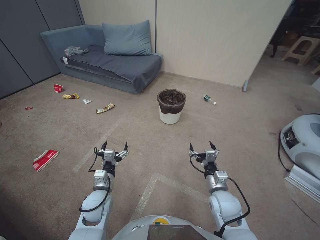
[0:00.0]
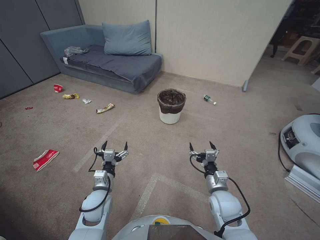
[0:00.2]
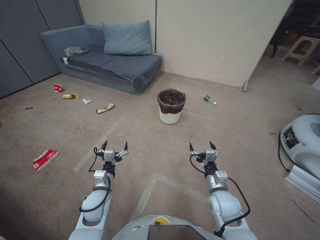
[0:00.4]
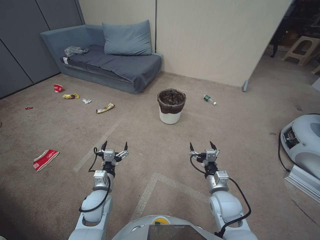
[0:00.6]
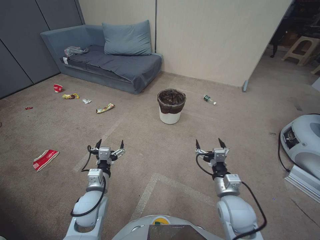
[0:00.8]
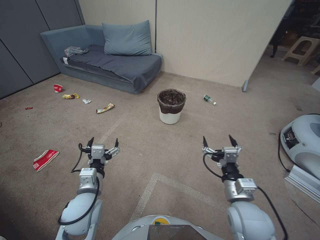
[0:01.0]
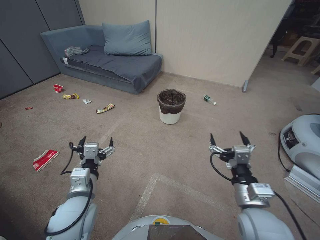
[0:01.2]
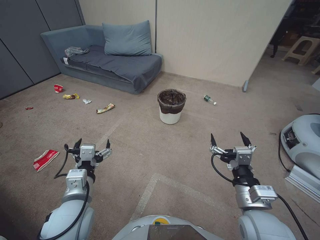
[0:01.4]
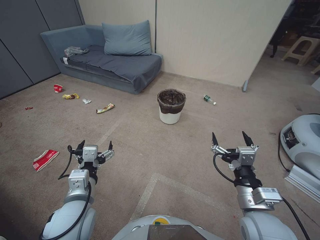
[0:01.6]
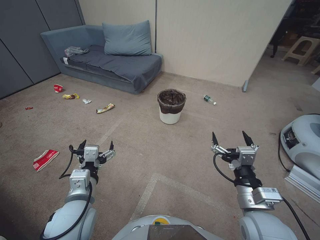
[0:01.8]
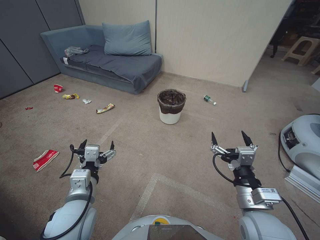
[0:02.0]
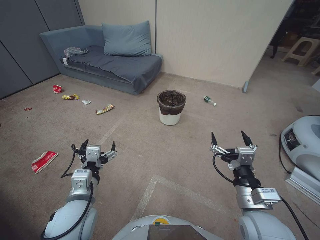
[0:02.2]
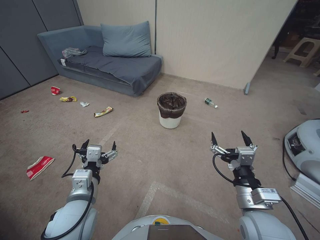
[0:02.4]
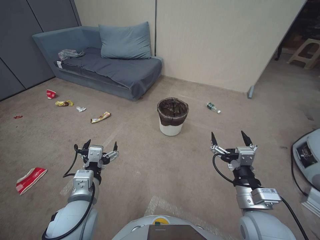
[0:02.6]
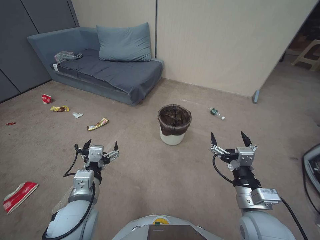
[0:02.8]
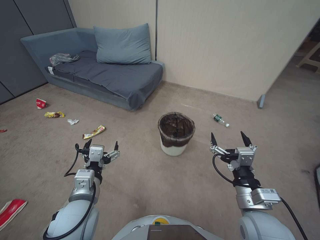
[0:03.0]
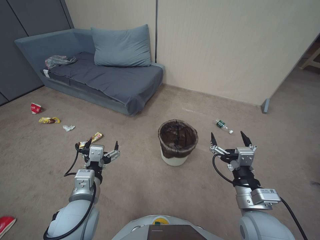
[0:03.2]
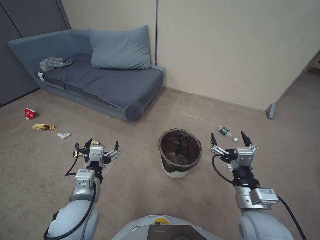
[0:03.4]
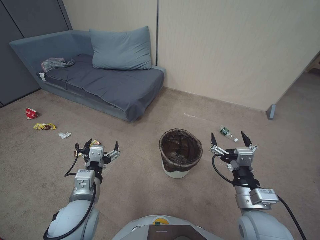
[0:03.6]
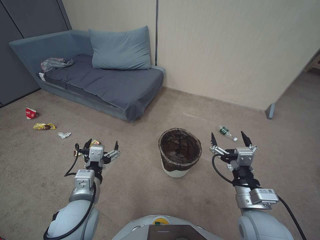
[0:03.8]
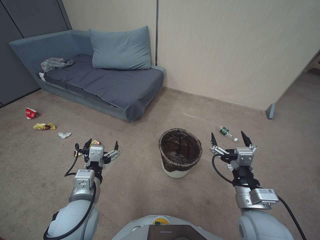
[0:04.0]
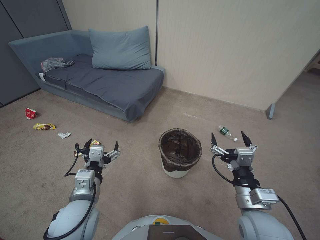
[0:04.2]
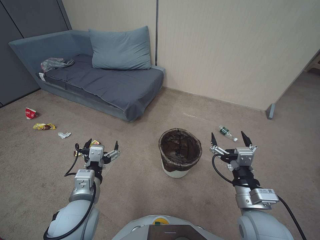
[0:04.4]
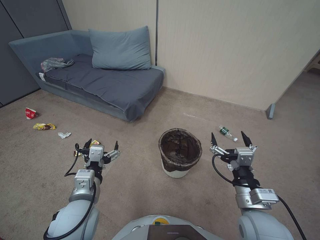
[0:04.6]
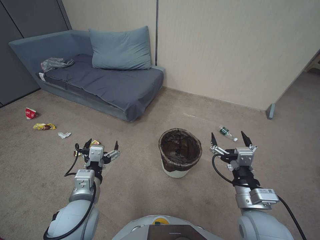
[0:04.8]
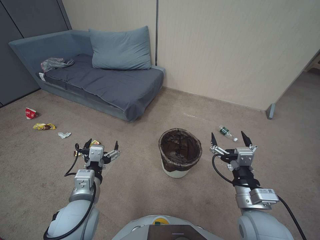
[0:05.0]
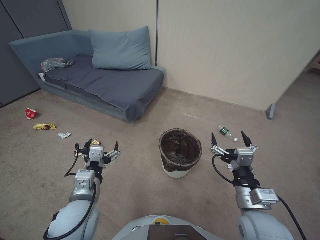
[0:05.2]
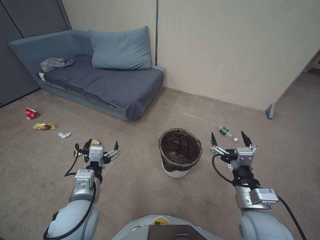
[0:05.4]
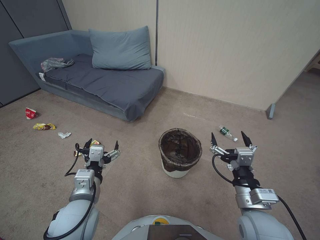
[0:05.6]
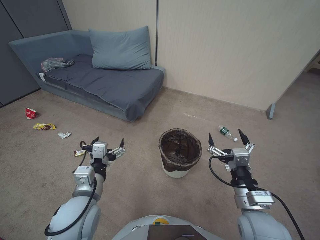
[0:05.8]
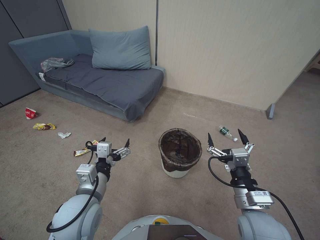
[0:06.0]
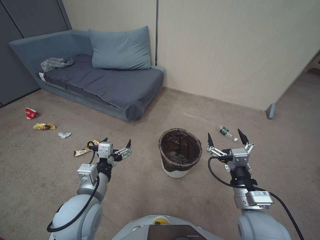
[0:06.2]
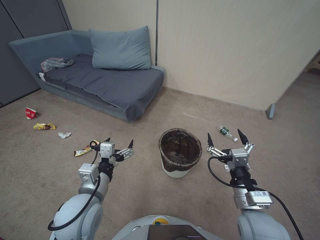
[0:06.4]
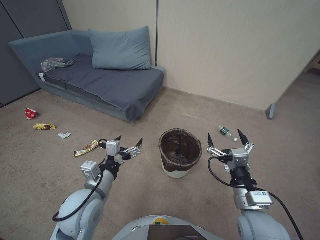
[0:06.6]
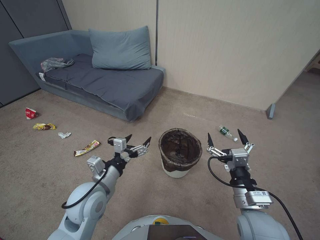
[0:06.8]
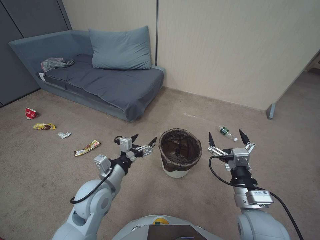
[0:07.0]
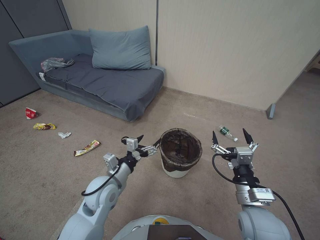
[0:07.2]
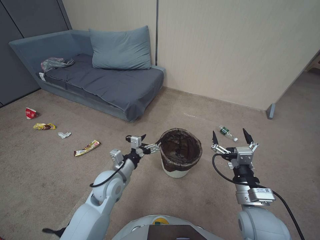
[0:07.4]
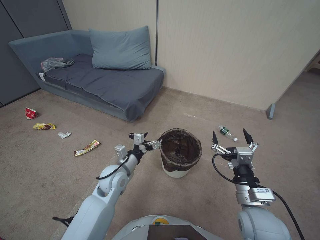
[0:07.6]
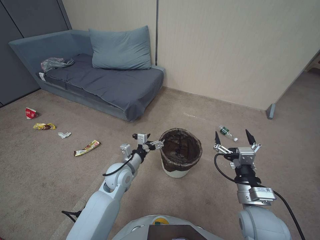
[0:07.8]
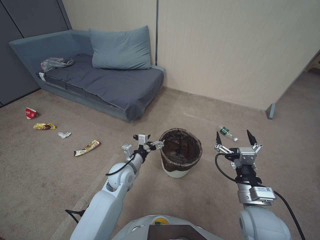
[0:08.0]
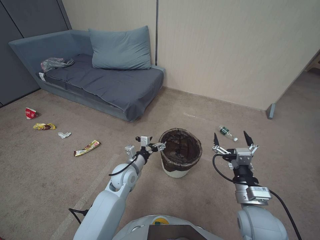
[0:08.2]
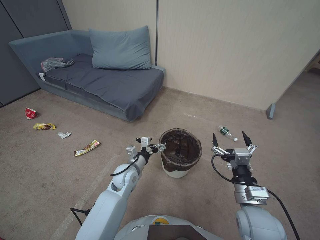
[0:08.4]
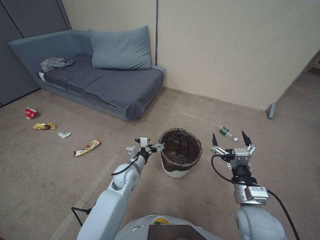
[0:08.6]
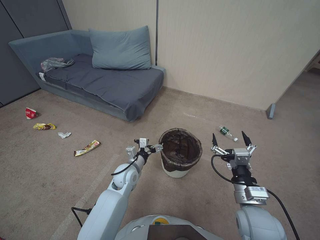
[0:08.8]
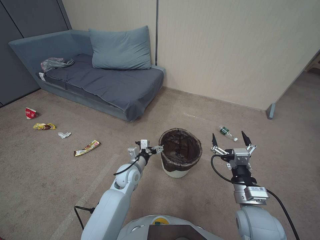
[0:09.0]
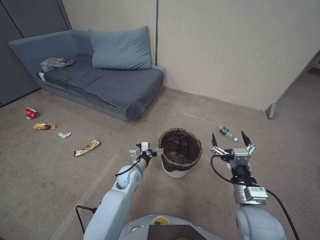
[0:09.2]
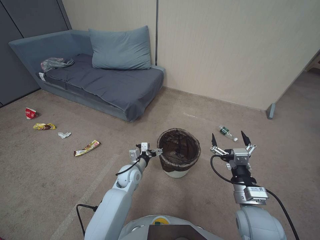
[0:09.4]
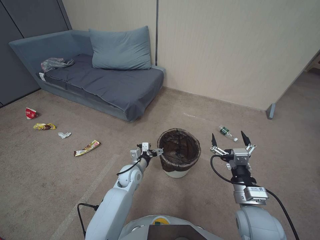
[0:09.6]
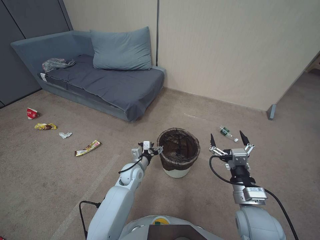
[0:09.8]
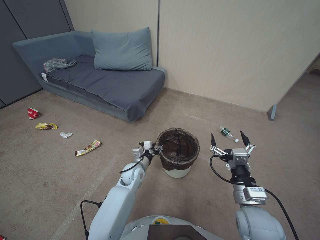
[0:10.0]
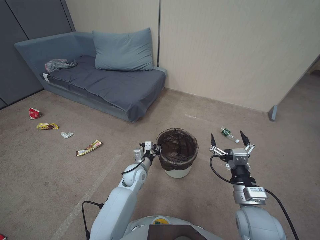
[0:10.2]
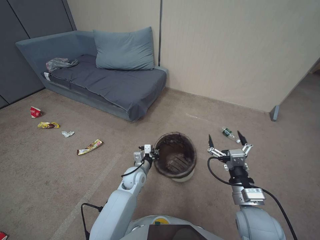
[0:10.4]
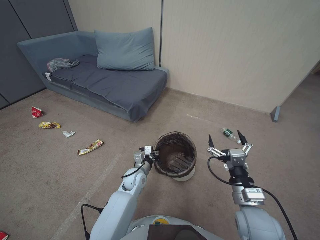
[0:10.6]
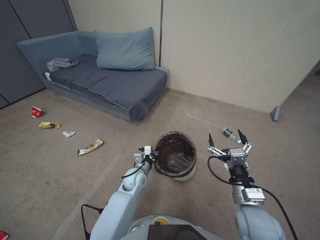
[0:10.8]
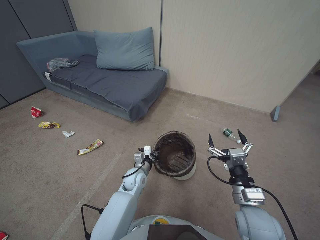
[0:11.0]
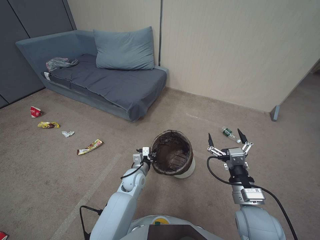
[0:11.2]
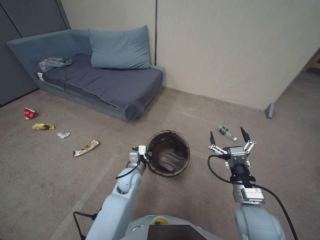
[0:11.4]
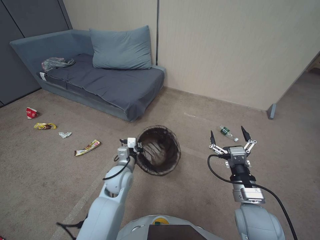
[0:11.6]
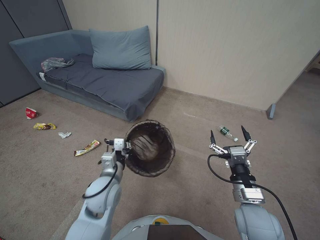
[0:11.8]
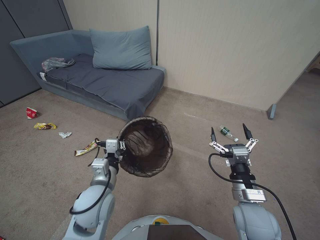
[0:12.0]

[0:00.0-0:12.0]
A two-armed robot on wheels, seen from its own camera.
Task of the whole recording: Pick up the trash bin, then pick up the garbage from the floor and place it into the trash bin.
0:03.0 to 0:04.4: Neither gripper changes place.
0:04.4 to 0:06.0: The grippers stay close to where they were, moving slightly.
0:06.0 to 0:07.6: The left gripper moves forward and downward, some 10 cm.
0:07.6 to 0:09.0: The left gripper shifts approximately 10 cm downward and forward.
0:09.0 to 0:10.4: The left gripper changes place by approximately 5 cm, and closes.
0:10.4 to 0:12.0: The left gripper travels upward and backward by about 20 cm.

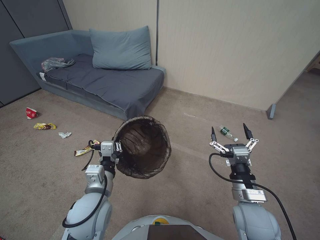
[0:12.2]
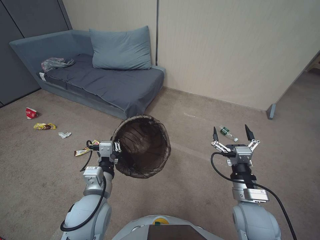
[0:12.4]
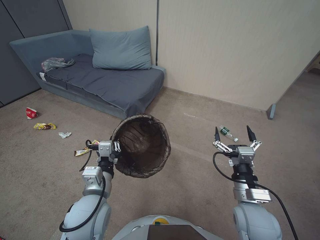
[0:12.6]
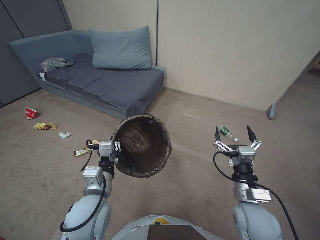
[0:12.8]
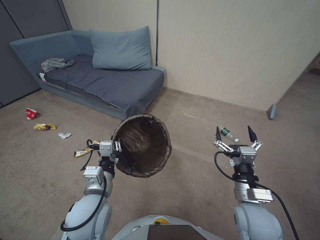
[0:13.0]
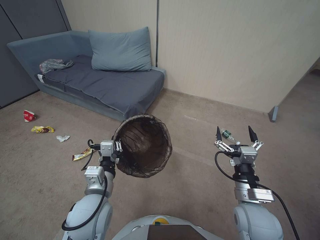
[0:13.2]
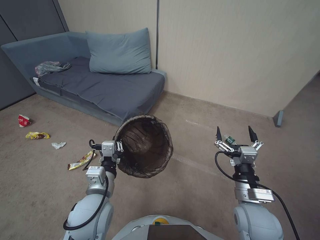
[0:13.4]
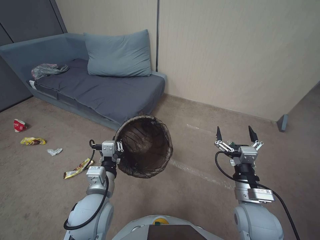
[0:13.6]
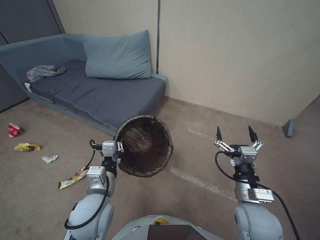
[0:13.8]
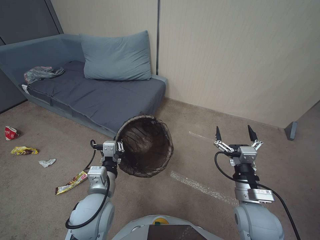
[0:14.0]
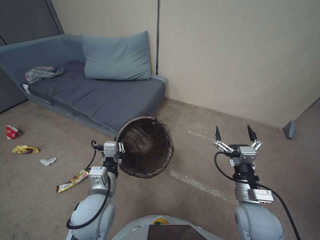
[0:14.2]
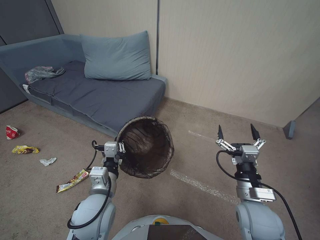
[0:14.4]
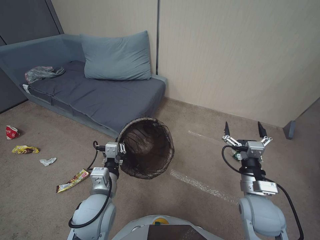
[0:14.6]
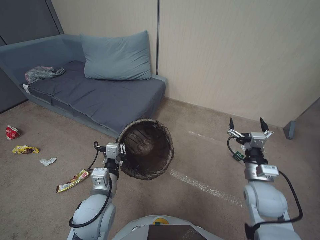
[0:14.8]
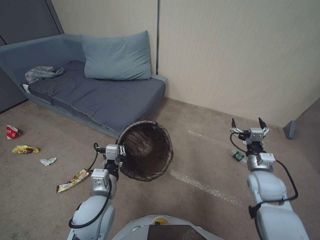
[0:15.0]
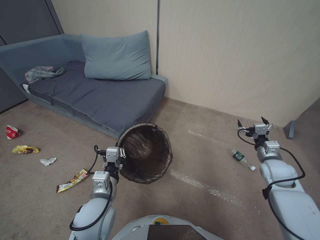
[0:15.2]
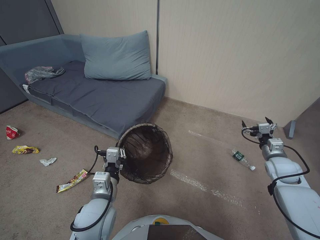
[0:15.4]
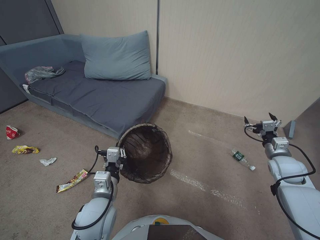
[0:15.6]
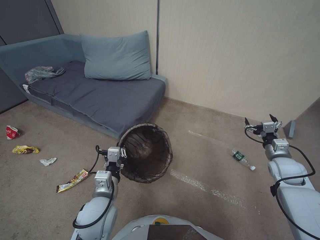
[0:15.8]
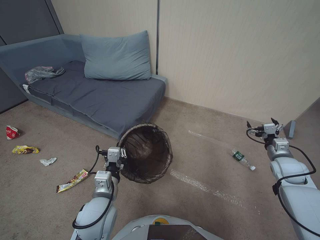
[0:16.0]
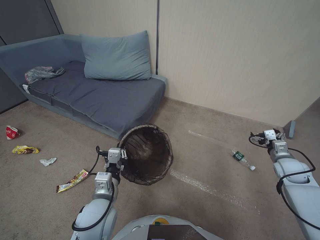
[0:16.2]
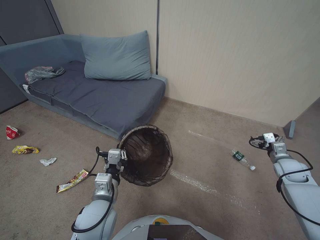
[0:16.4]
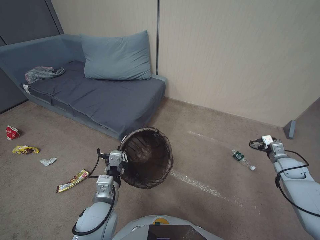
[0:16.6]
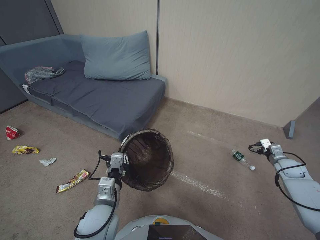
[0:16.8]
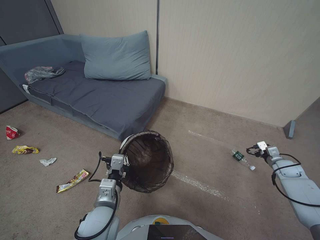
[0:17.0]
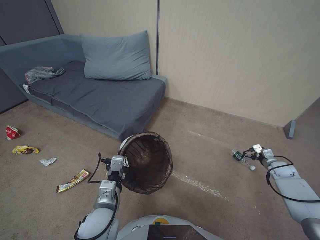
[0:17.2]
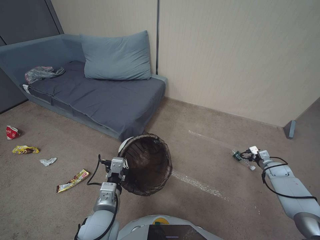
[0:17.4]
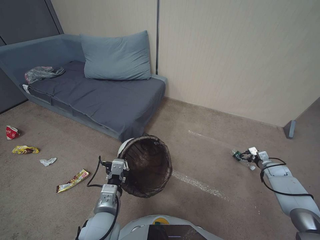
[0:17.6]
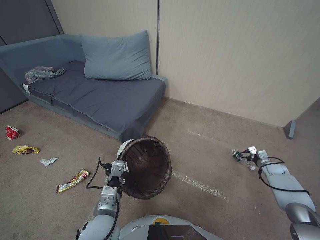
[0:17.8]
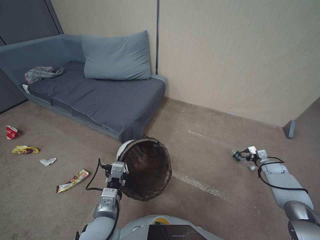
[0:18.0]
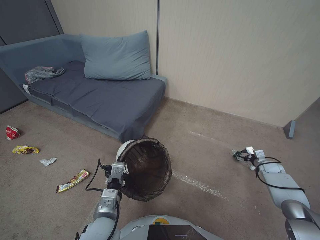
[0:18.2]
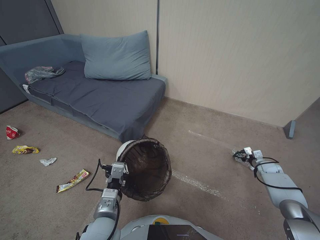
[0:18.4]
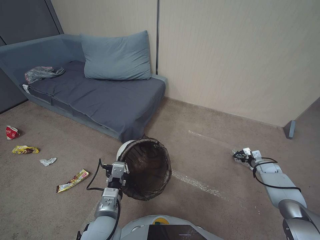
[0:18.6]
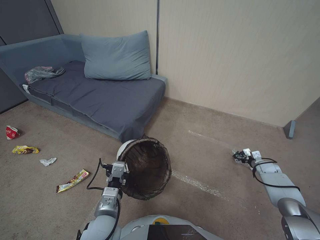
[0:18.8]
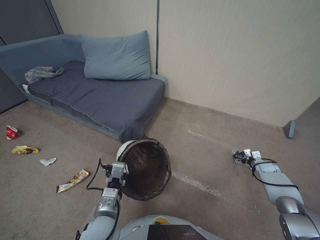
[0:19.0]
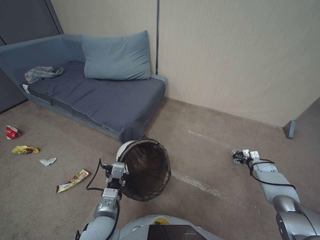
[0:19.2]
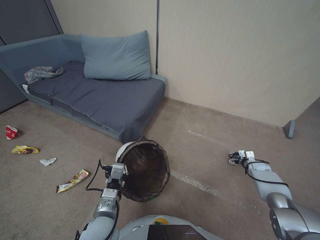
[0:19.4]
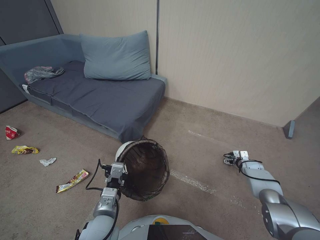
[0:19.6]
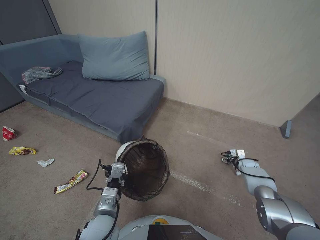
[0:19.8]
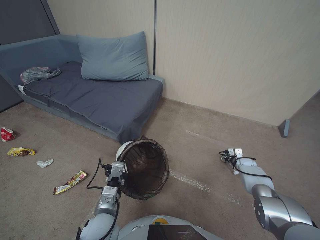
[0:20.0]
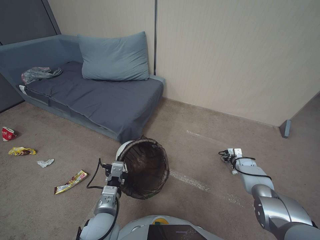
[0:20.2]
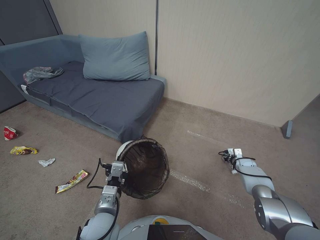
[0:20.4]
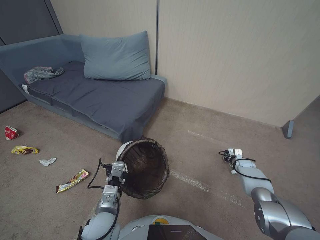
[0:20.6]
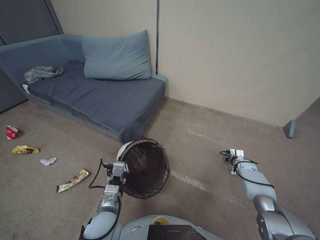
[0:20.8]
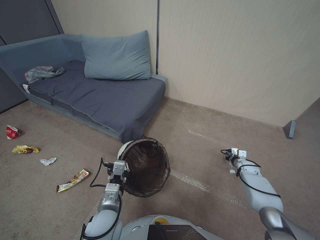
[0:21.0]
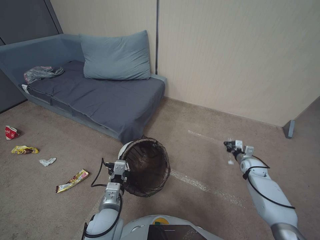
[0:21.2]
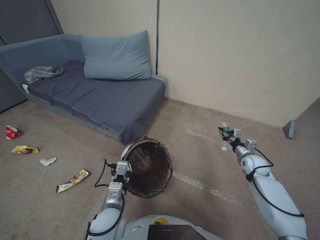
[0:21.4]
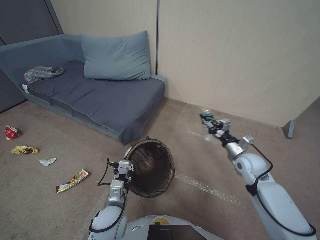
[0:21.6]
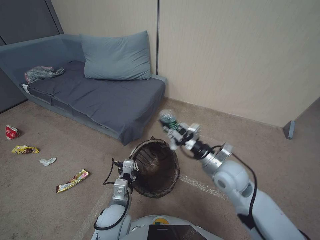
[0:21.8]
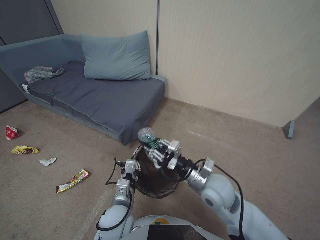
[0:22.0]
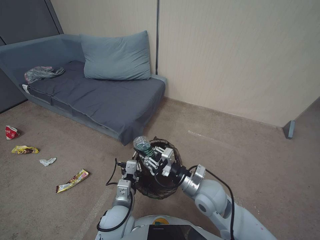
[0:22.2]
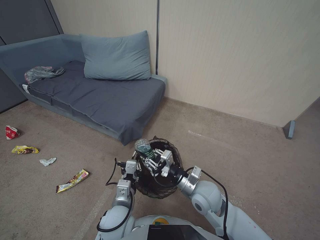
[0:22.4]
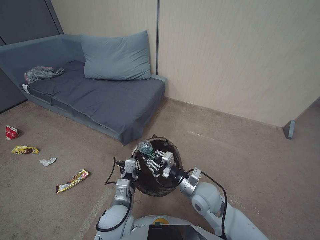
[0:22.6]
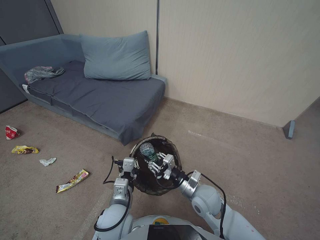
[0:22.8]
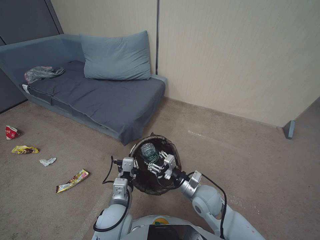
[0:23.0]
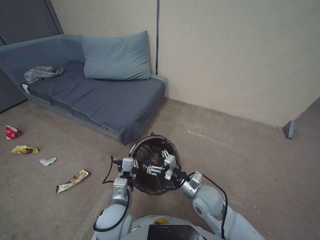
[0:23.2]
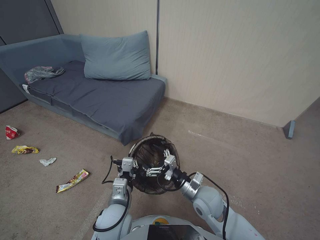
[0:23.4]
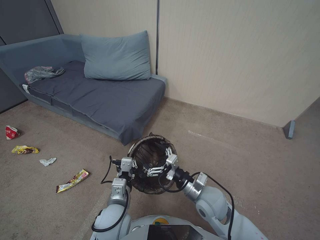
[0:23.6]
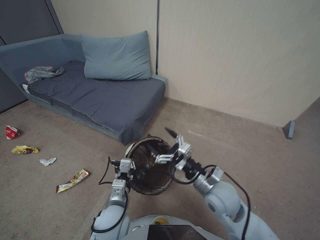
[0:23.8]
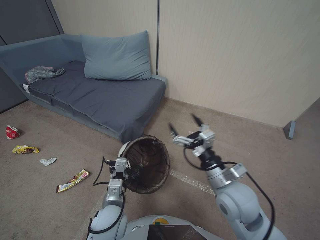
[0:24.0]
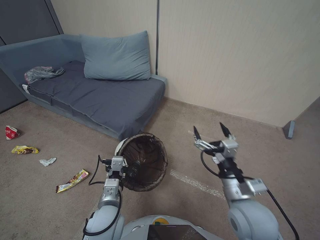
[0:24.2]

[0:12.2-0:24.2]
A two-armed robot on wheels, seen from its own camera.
Task of the whole recording: Pick up the trash bin, then pick up the garbage from the floor and place it into the trash bin.
0:12.2 to 0:13.8: The grippers move only a little.
0:13.8 to 0:15.2: The right gripper travels to the right and forward by about 20 cm.
0:15.2 to 0:16.6: The right gripper is displaced to the right by roughly 15 cm.
0:16.6 to 0:18.2: The right gripper moves downward, about 10 cm.
0:18.2 to 0:19.8: The right gripper heads to the left and downward, covering about 10 cm.
0:19.8 to 0:21.2: The right gripper closes up.
0:21.2 to 0:22.6: The right gripper shifts some 40 cm to the left, upward and backward.
0:22.6 to 0:24.2: The right gripper travels upward and to the right by approximately 10 cm, and opens its fingers.
